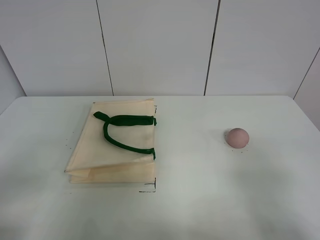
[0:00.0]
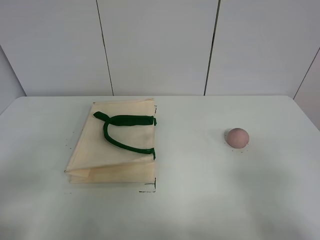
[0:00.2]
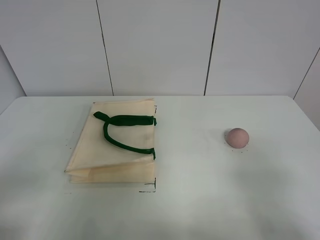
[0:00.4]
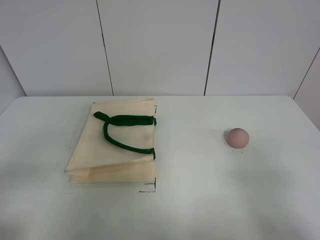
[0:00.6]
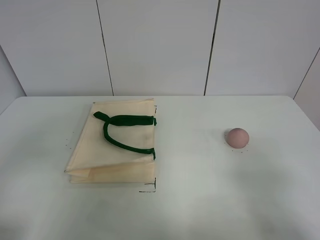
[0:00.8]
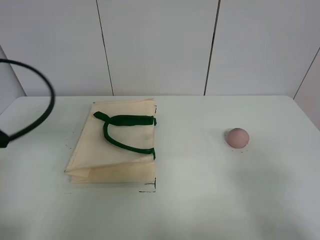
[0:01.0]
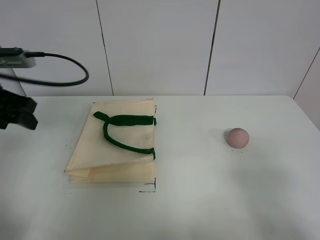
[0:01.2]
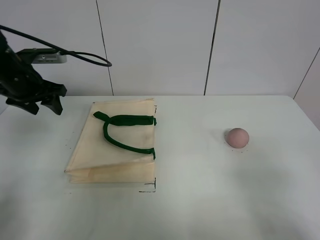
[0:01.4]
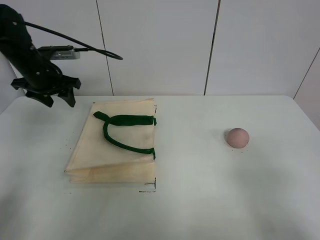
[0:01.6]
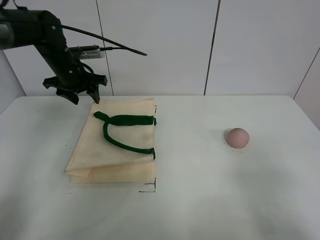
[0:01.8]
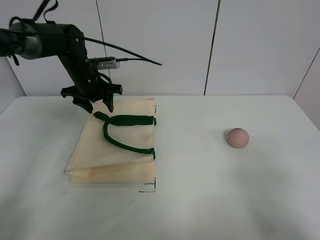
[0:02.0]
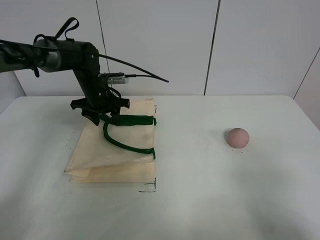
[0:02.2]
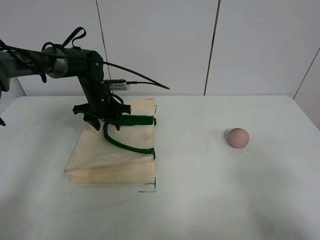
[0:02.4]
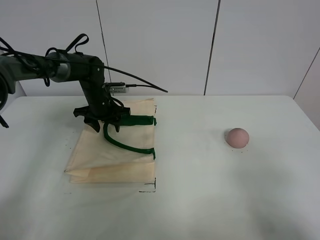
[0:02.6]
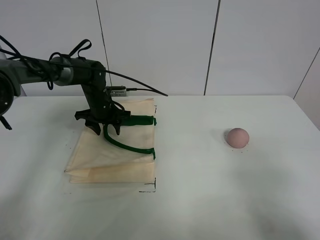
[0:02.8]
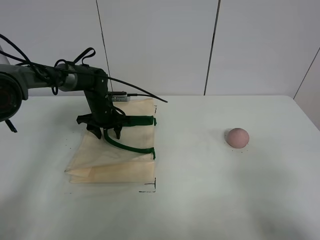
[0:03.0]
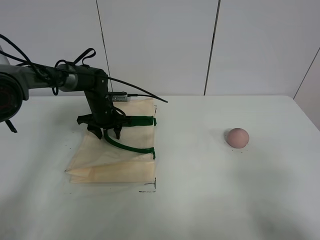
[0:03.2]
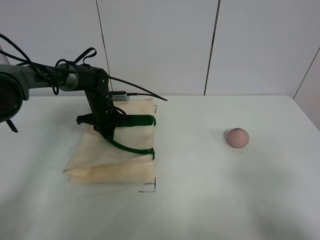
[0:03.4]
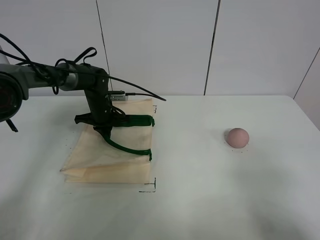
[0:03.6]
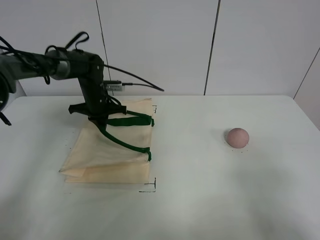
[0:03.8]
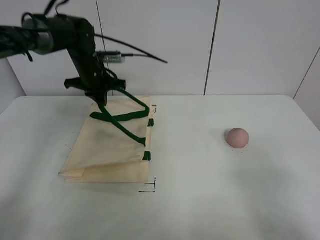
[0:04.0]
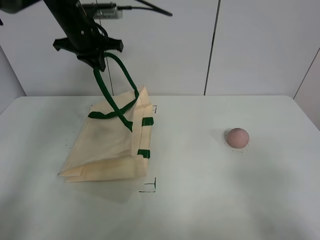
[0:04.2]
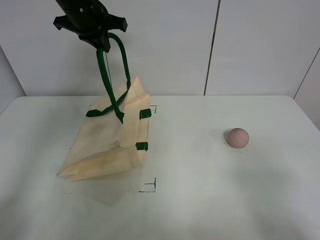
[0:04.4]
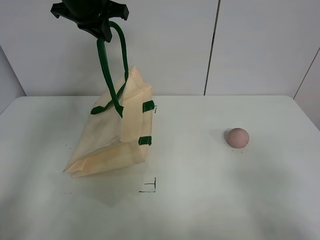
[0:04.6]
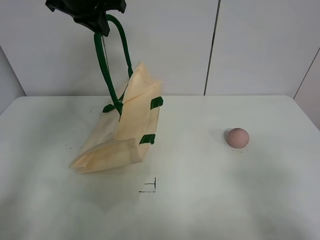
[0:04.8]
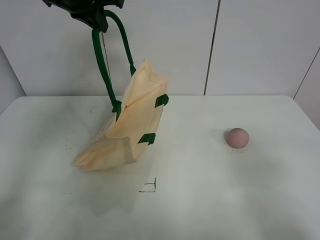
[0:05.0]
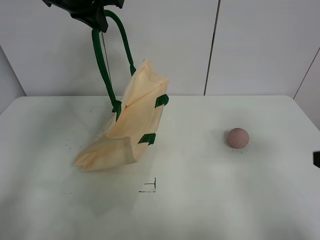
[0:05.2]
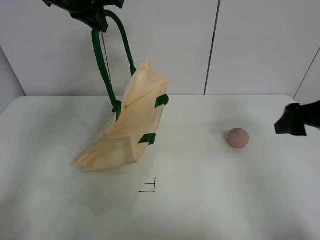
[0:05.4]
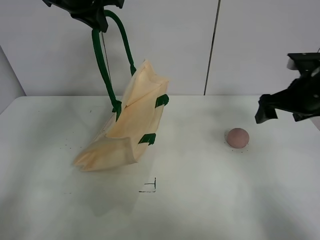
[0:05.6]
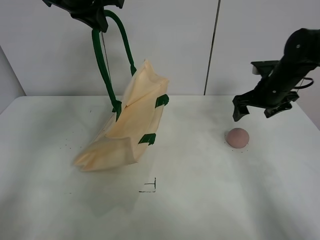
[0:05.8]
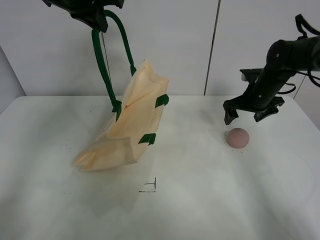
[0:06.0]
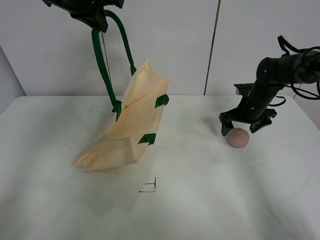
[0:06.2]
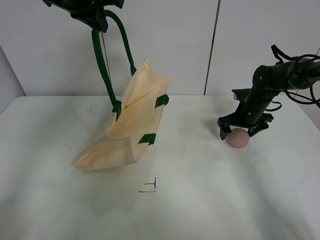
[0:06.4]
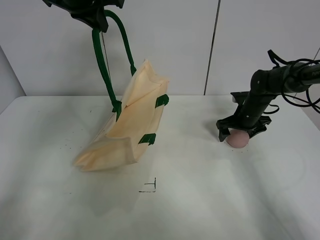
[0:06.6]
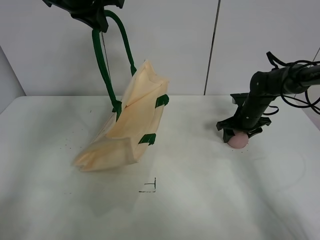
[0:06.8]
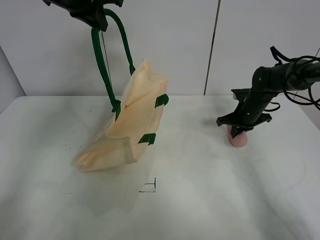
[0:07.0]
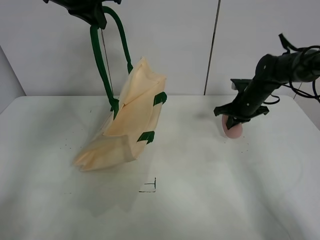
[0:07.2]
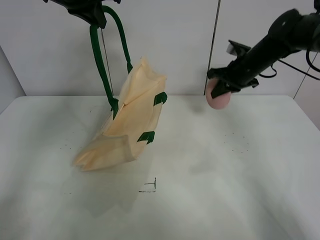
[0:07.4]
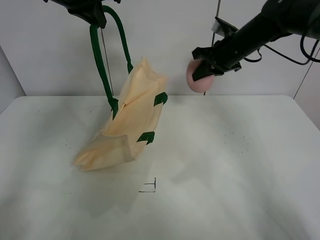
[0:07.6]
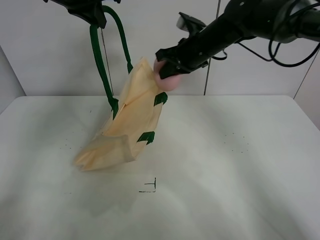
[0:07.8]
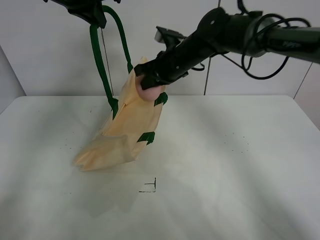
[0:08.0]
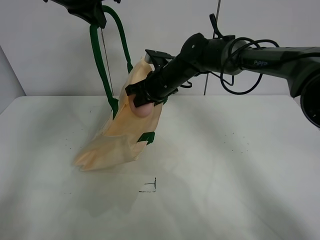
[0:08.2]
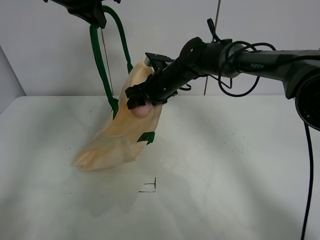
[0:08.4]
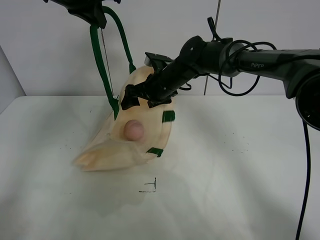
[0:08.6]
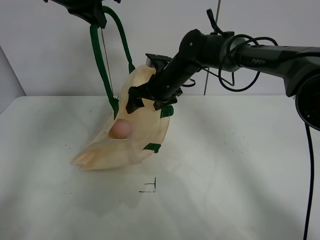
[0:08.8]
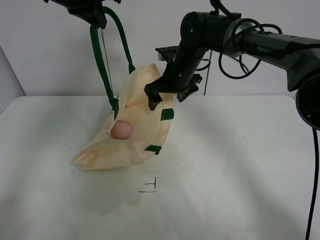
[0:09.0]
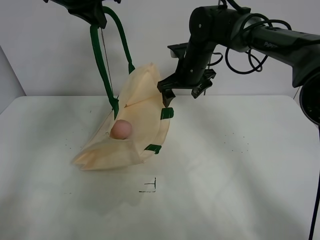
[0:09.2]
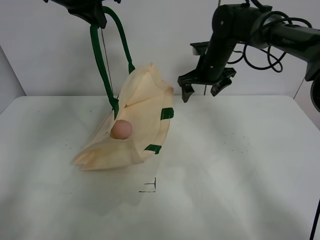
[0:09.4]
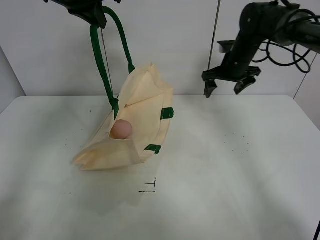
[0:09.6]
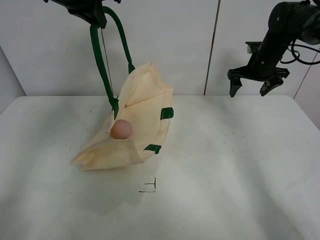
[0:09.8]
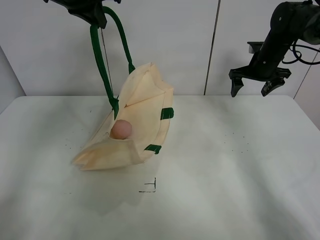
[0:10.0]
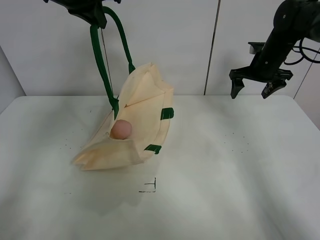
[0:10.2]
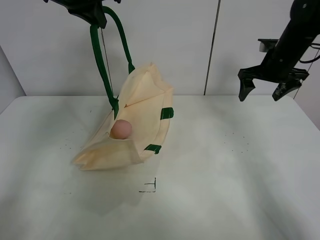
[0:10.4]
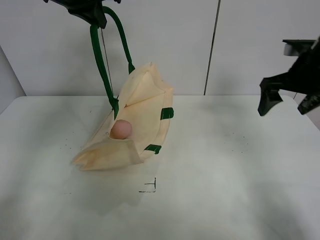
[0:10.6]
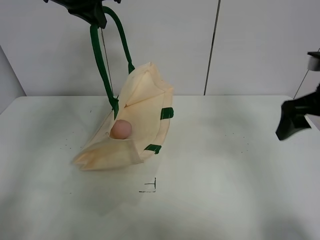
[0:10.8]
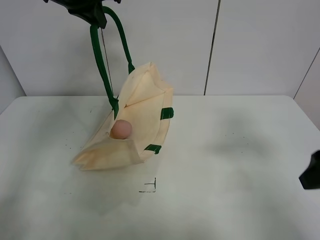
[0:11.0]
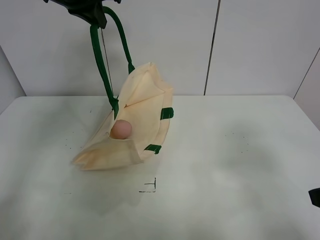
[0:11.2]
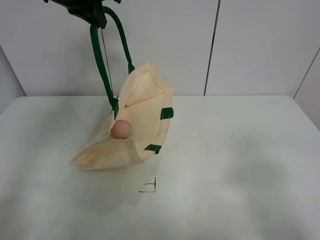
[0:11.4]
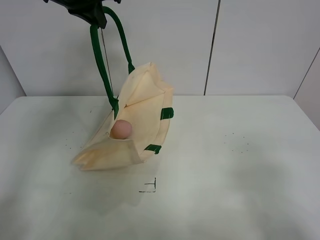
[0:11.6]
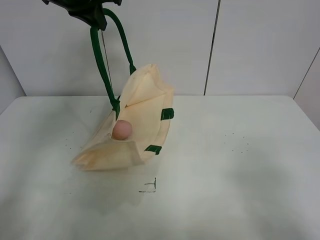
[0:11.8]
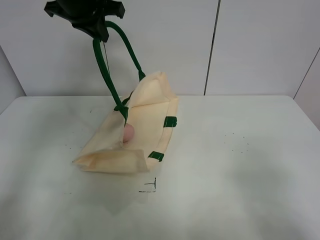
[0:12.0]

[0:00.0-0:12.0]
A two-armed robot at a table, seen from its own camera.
Task of the whole recording: open the white linen bag and put the peach in the bag.
Step, 0:00.0 to 0:04.8: Lift the handbag with left gripper.
Step, 0:05.0 to 0:06.8: Grasp the peach with right gripper.
Step, 0:07.0 to 0:08.6: Place the peach in the handbag with right gripper.
0:00.0 to 0:01.6: The left gripper heads forward, covering approximately 40 cm.
0:01.6 to 0:03.0: The left gripper travels downward and to the right by roughly 20 cm.
0:03.0 to 0:04.4: The left gripper goes roughly 30 cm upward, and closes.
0:04.4 to 0:06.0: The right gripper is displaced forward by approximately 40 cm.
0:06.0 to 0:07.6: The right gripper shifts about 10 cm upward and to the left, and closes up.
0:07.6 to 0:09.0: The right gripper shifts roughly 15 cm to the left, and opens its fingers.
0:09.0 to 0:10.4: The right gripper heads to the right, covering approximately 20 cm.
0:10.4 to 0:12.0: The right gripper goes approximately 40 cm backward.

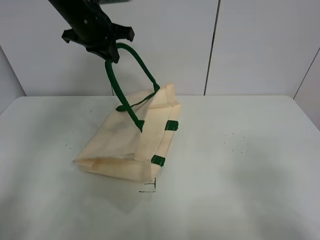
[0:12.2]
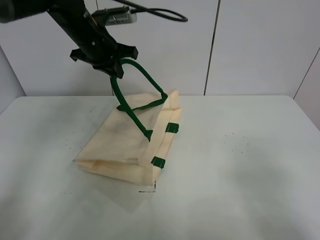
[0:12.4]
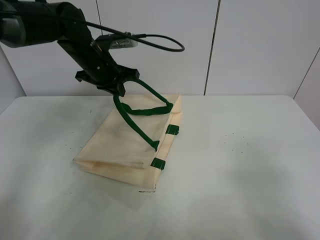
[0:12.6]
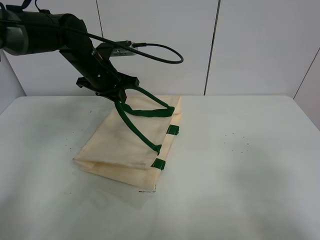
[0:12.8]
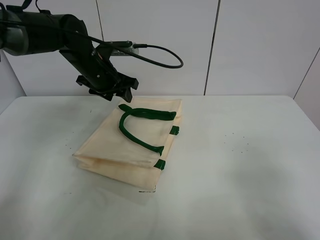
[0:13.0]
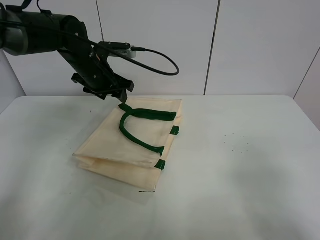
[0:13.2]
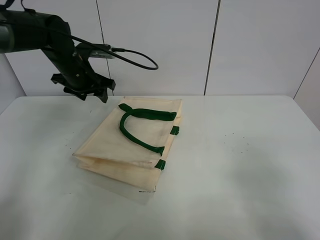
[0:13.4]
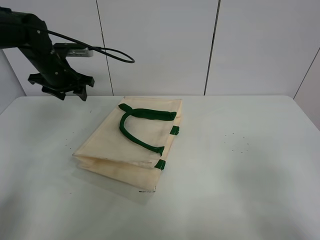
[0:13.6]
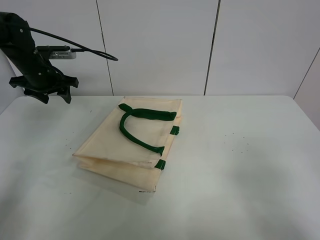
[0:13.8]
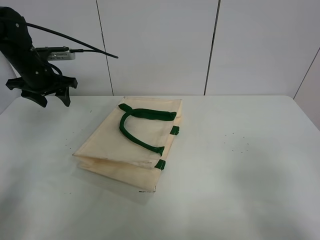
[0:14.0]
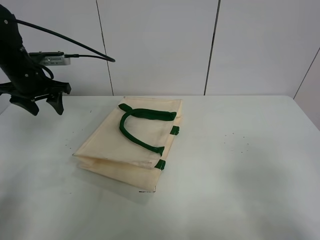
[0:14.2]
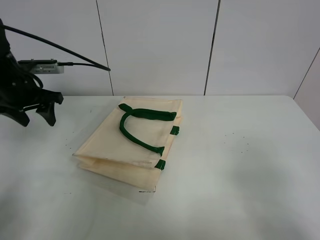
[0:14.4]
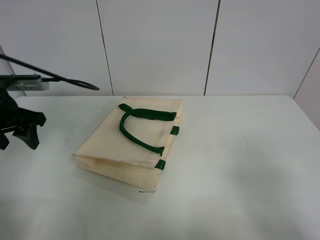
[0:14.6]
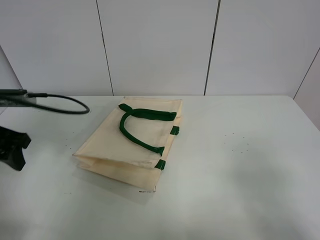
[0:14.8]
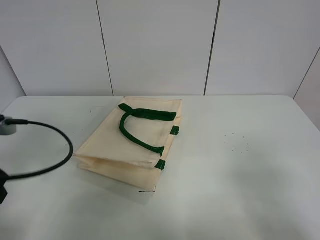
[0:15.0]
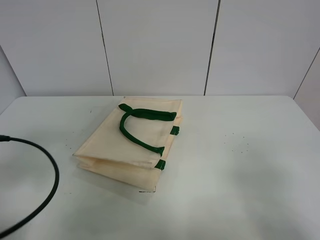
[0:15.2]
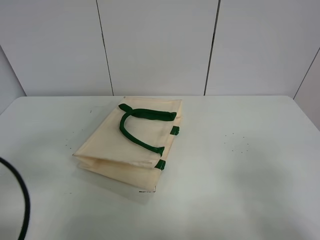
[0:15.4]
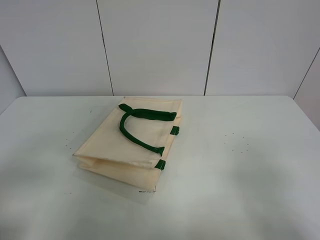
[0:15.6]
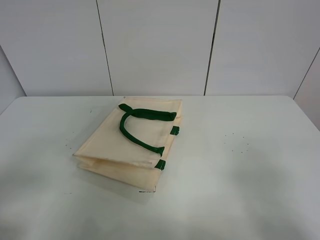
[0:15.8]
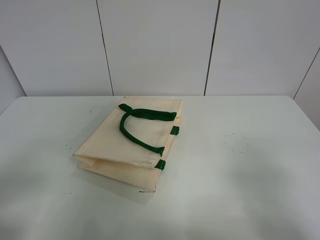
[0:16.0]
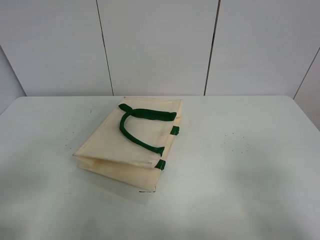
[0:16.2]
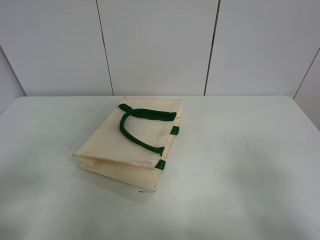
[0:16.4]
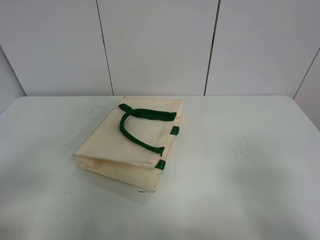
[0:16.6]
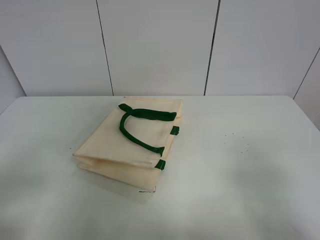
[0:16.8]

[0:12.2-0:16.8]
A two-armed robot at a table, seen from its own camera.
Task of the whole recording: open the white linen bag and put the peach in the bag.
0:12.2 to 0:13.8: The left gripper moves to the left and downward, roughly 20 cm, and opens.
0:13.8 to 0:15.2: The left gripper goes roughly 30 cm backward.
0:15.2 to 0:16.8: The left gripper moves backward, about 10 cm.
